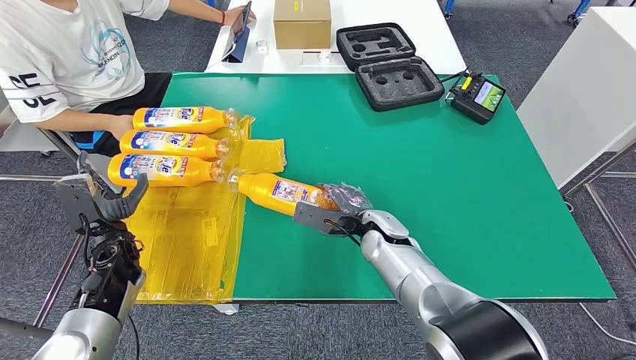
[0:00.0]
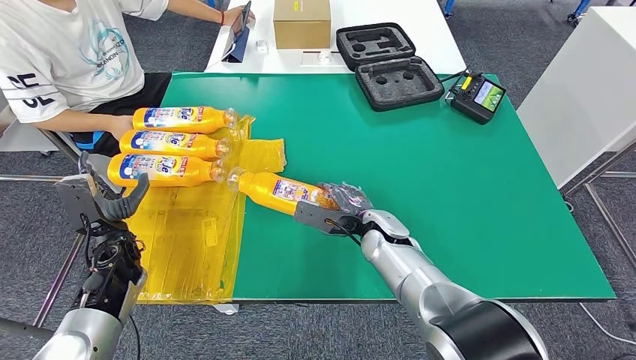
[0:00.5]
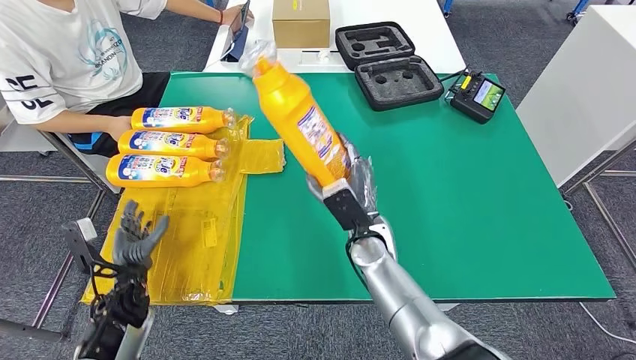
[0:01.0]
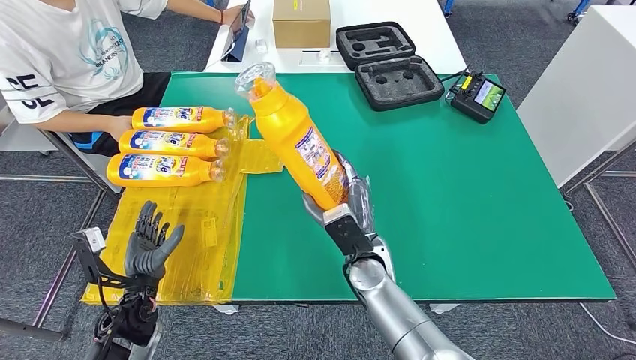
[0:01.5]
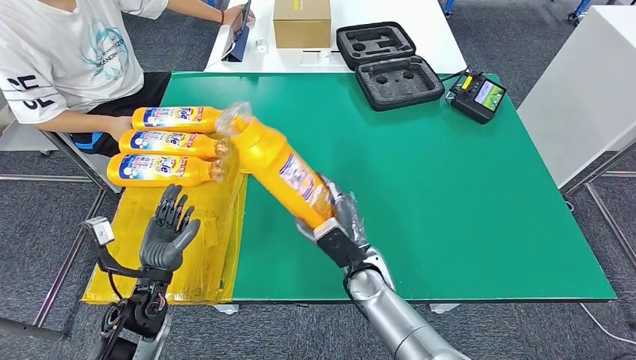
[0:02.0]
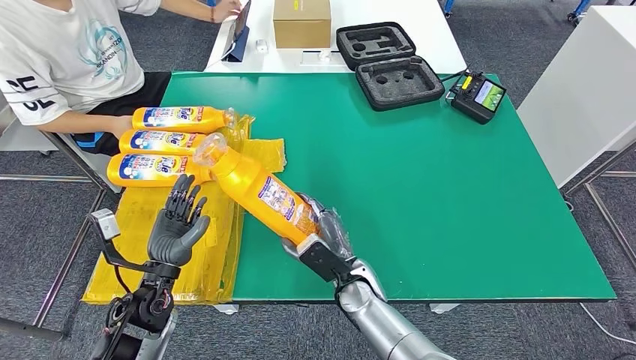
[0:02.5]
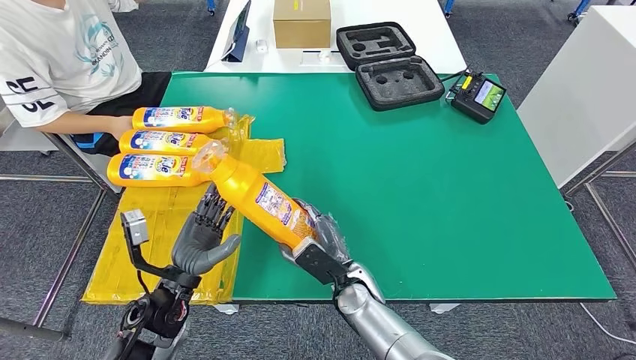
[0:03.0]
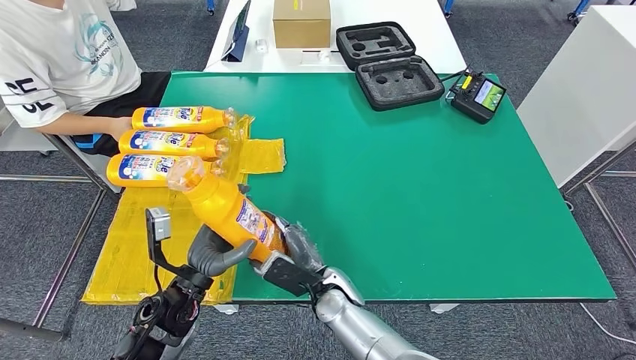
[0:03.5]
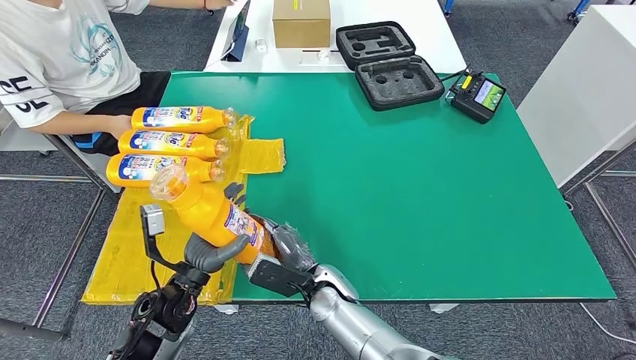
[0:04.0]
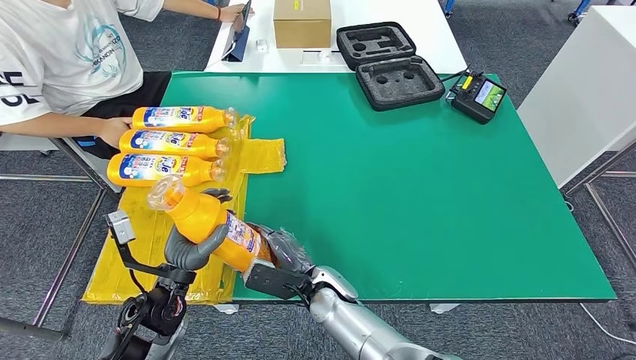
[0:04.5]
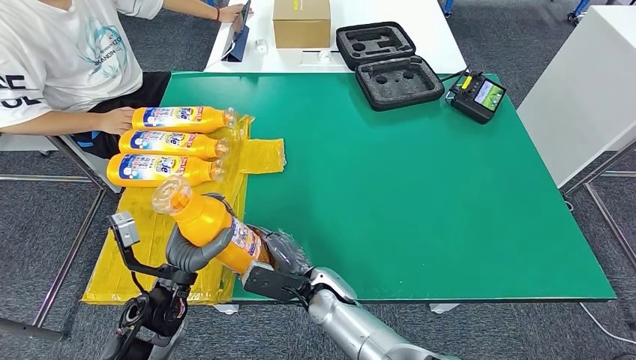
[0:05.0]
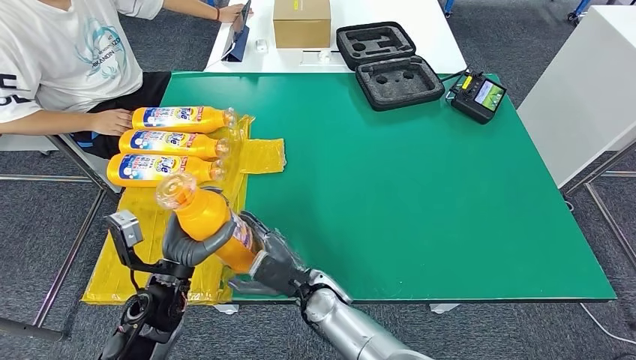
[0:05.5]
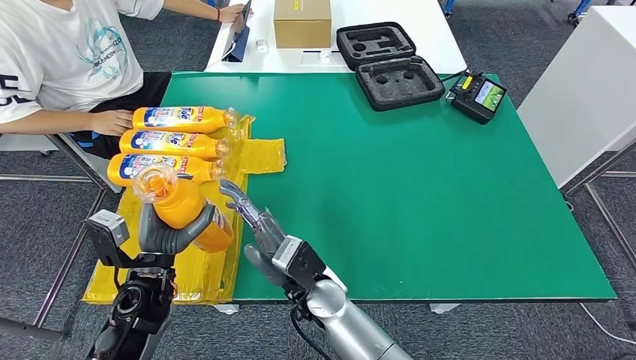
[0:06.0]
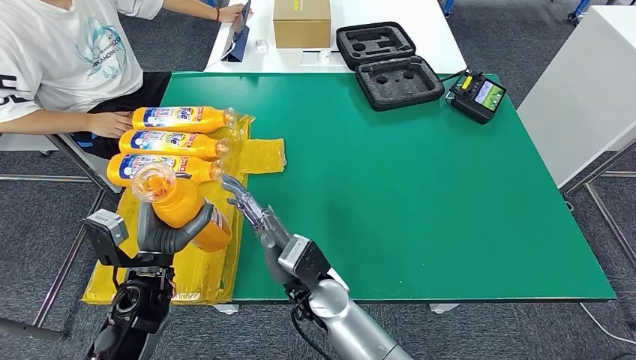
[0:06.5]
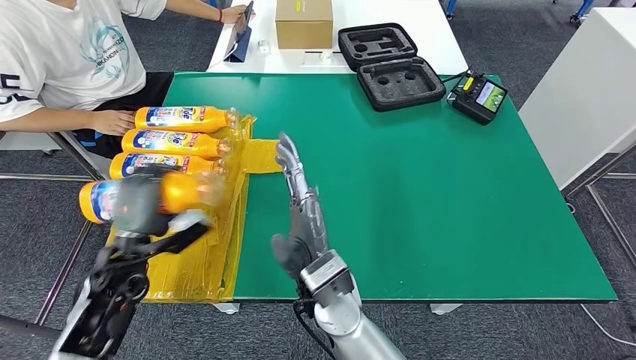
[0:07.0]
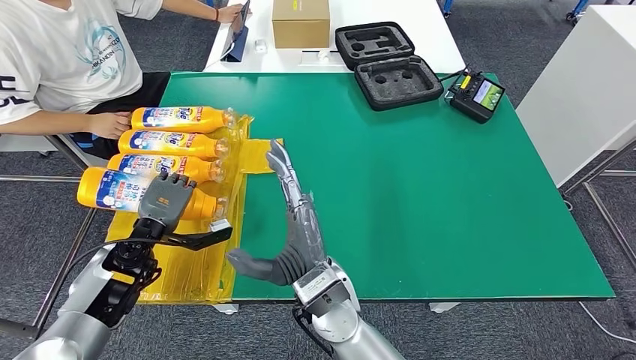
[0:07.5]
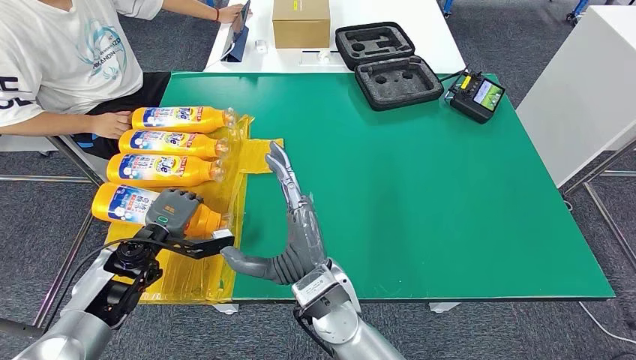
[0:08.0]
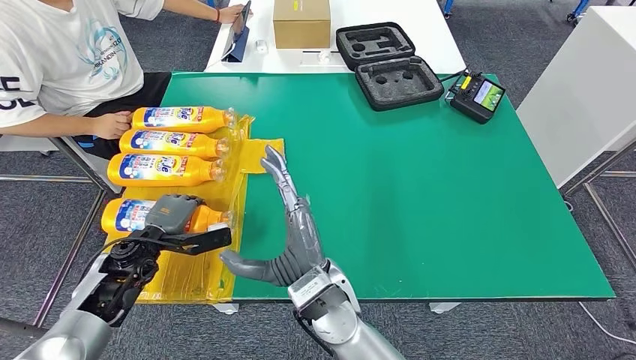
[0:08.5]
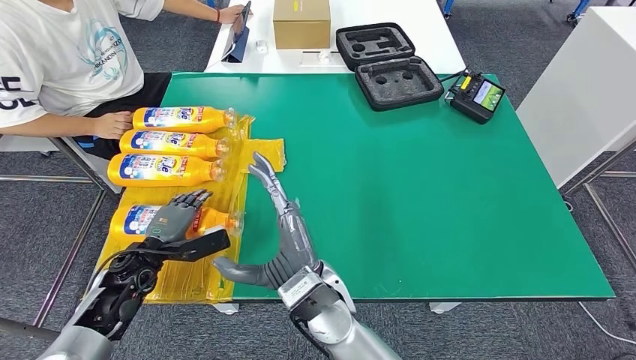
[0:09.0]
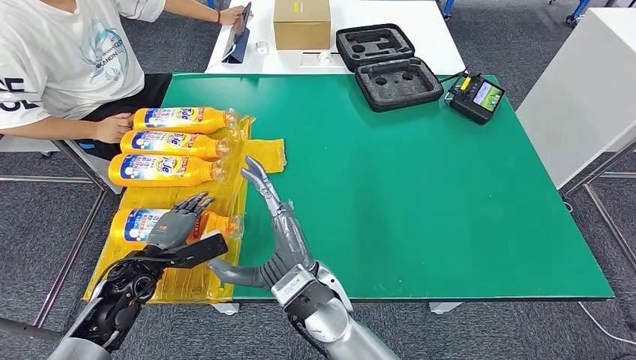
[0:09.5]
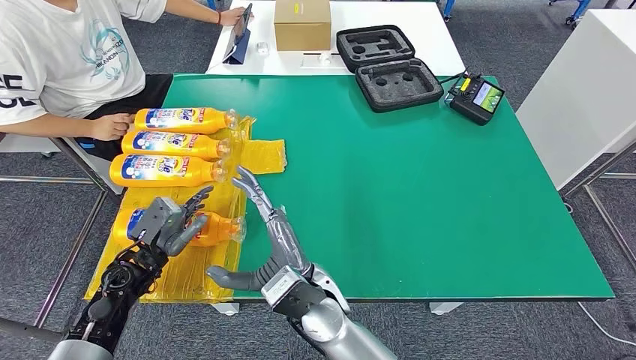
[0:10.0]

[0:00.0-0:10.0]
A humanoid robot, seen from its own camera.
Step, 0:00.0 to 0:02.0: Pick up the fast-moving consumer goods bottle from the table.
Step, 0:03.0 to 0:10.0: Flip the fast-moving consumer goods bottle to the front side.
0:00.0 to 0:02.0: The right hand is displaced backward by about 5 cm; the left hand shifts approximately 10 cm backward and to the right.
0:02.0 to 0:04.0: The left hand heads to the right, covering some 5 cm, while the right hand shifts some 10 cm to the left.
0:04.0 to 0:06.0: The right hand goes roughly 5 cm upward.
0:06.0 to 0:08.0: The right hand ends up about 5 cm from where it was, while the left hand travels forward by approximately 10 cm.
